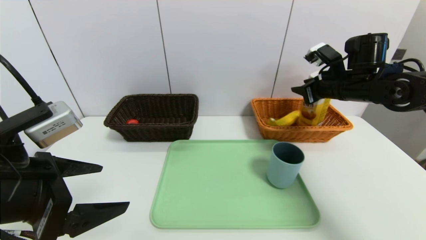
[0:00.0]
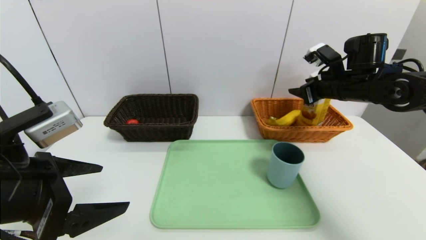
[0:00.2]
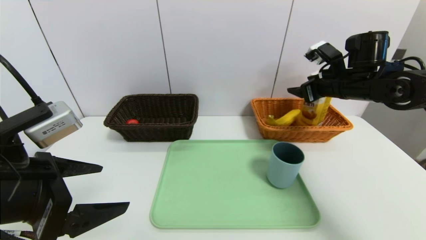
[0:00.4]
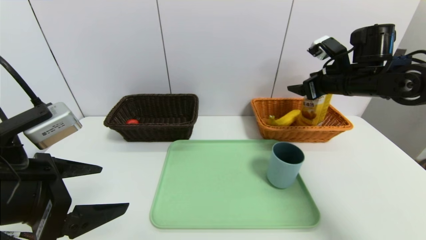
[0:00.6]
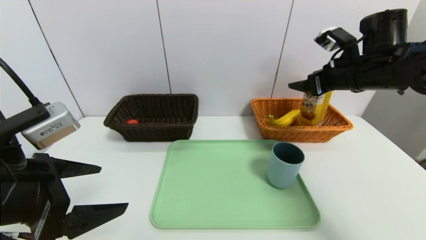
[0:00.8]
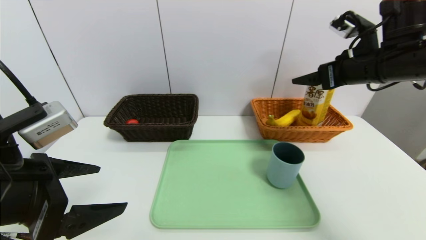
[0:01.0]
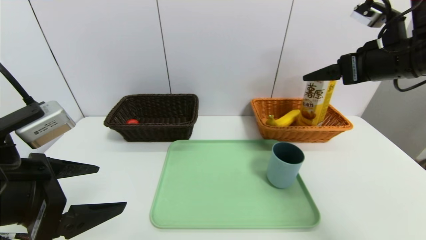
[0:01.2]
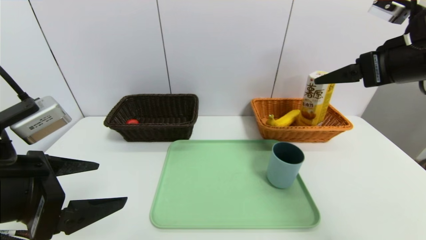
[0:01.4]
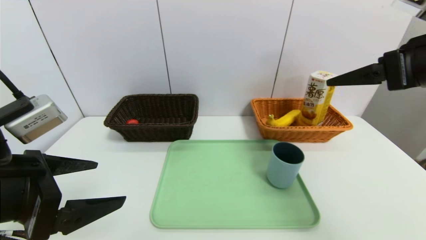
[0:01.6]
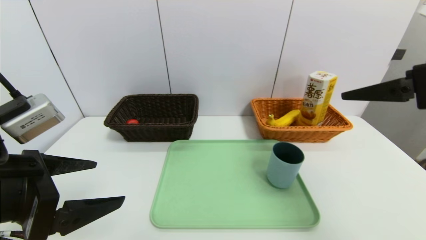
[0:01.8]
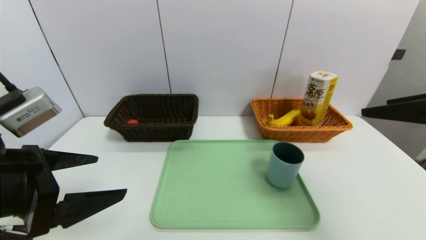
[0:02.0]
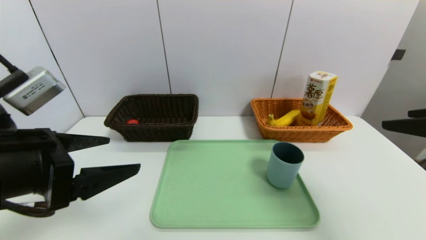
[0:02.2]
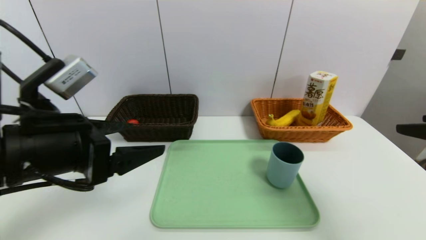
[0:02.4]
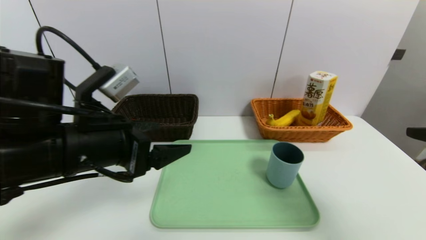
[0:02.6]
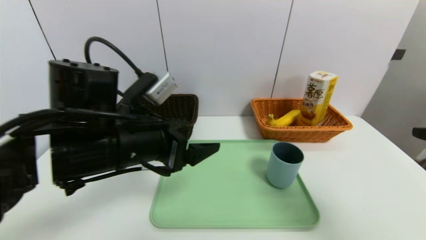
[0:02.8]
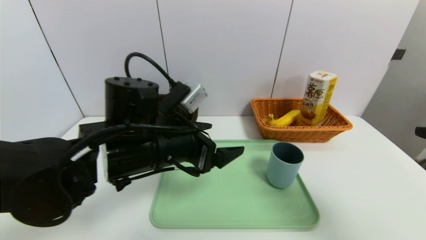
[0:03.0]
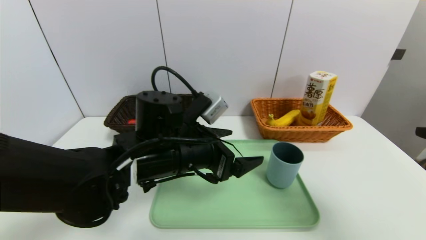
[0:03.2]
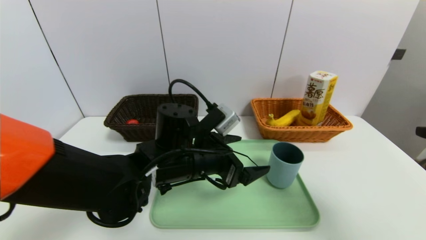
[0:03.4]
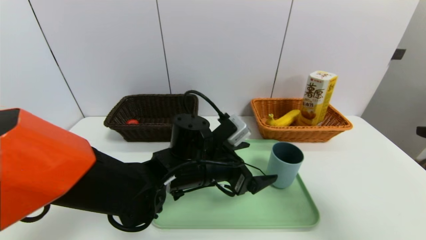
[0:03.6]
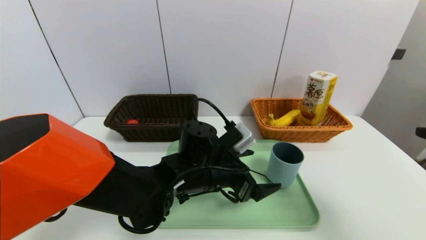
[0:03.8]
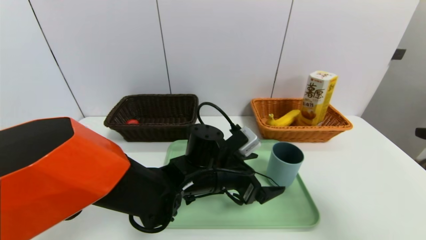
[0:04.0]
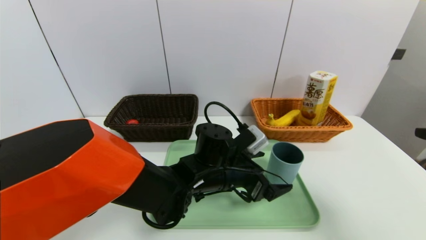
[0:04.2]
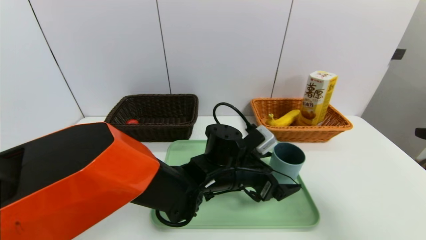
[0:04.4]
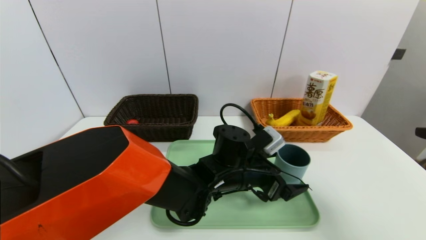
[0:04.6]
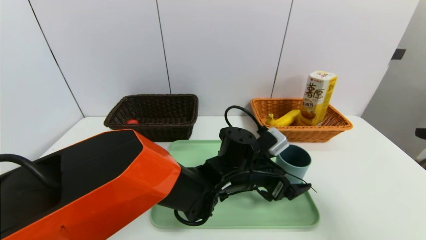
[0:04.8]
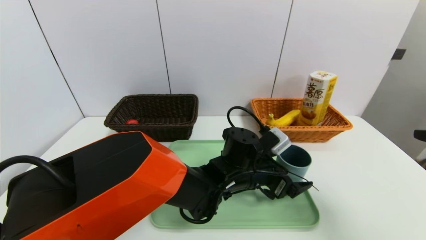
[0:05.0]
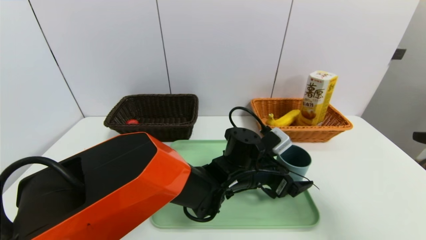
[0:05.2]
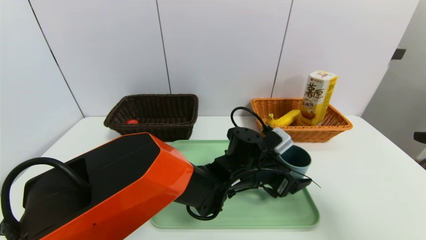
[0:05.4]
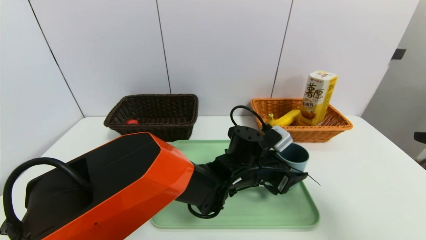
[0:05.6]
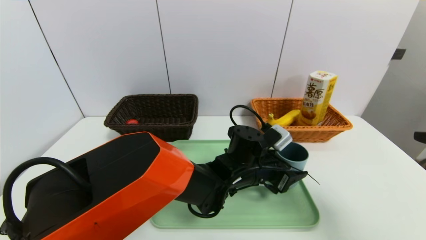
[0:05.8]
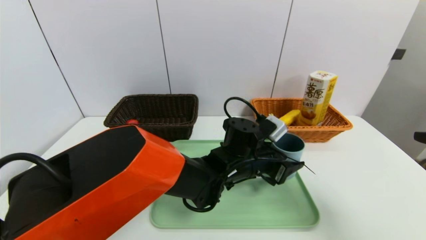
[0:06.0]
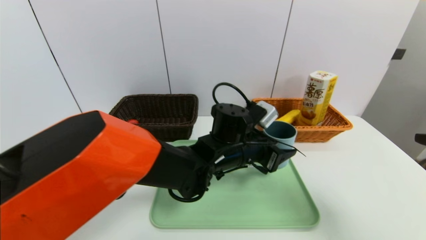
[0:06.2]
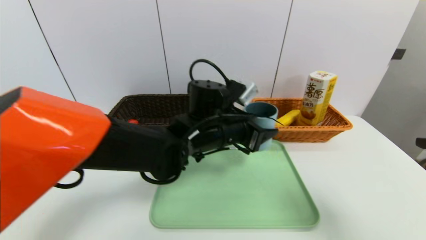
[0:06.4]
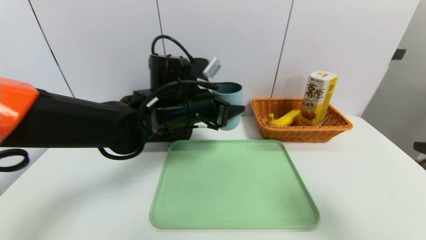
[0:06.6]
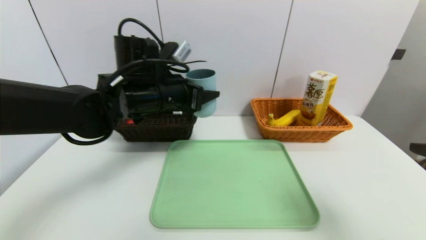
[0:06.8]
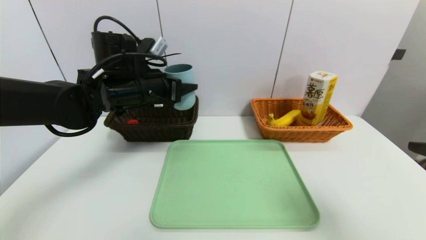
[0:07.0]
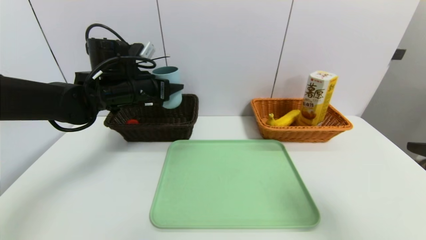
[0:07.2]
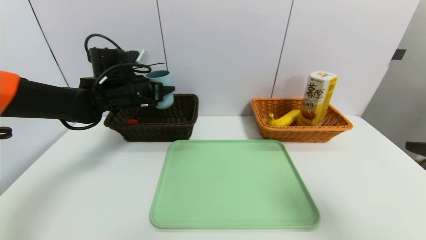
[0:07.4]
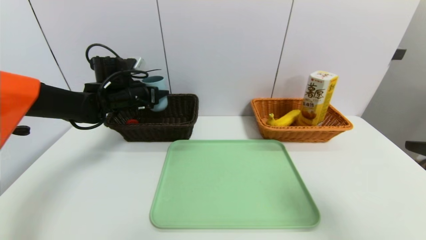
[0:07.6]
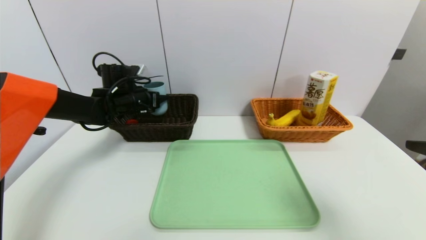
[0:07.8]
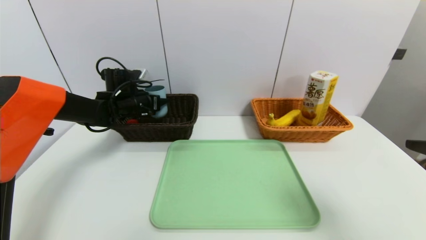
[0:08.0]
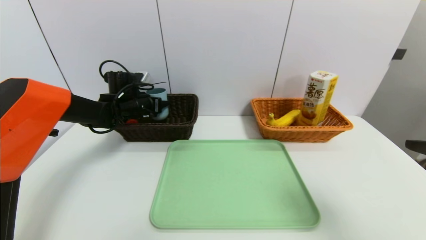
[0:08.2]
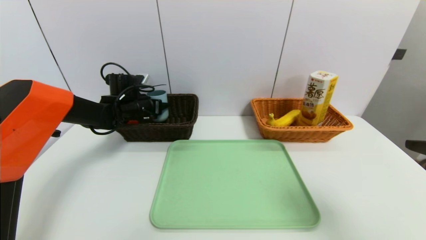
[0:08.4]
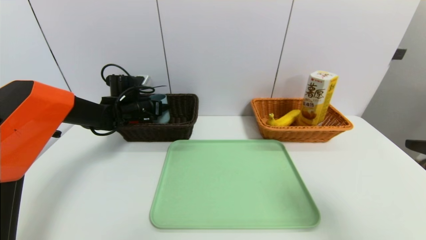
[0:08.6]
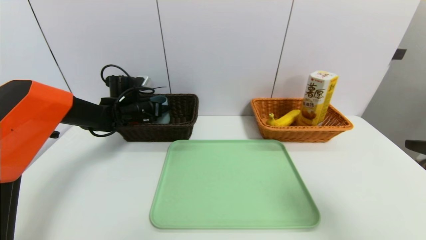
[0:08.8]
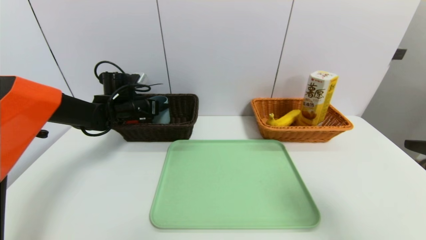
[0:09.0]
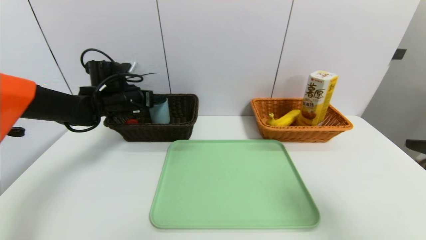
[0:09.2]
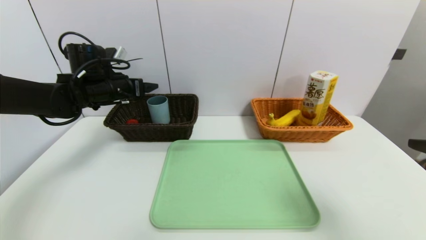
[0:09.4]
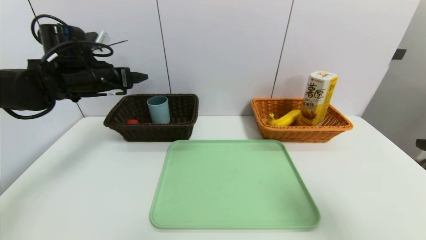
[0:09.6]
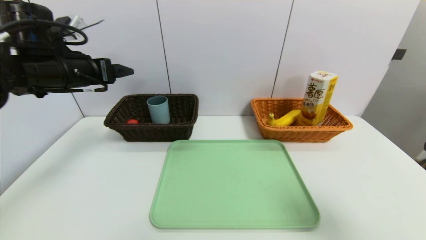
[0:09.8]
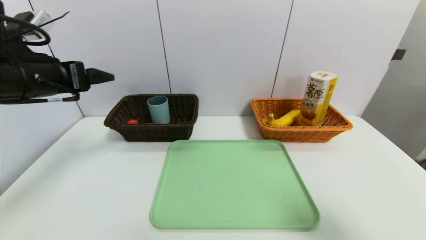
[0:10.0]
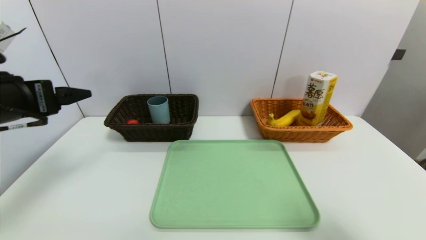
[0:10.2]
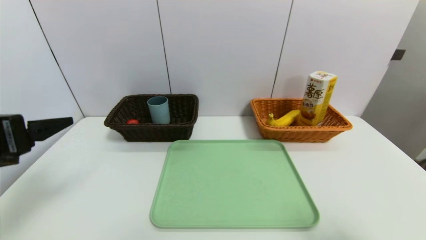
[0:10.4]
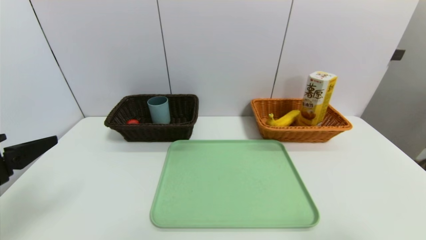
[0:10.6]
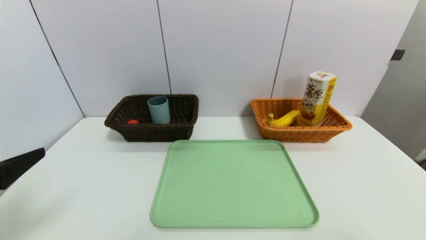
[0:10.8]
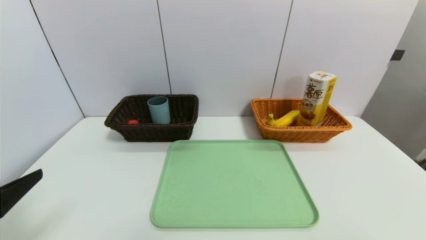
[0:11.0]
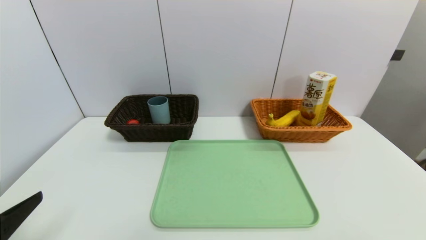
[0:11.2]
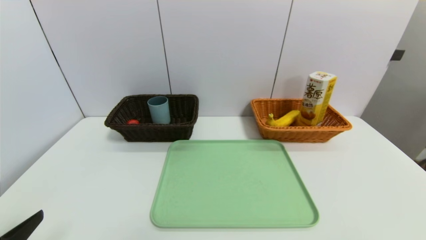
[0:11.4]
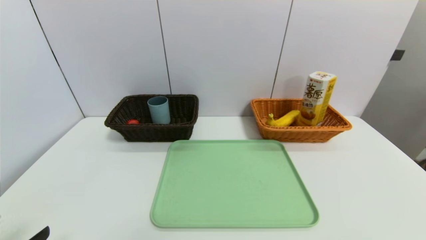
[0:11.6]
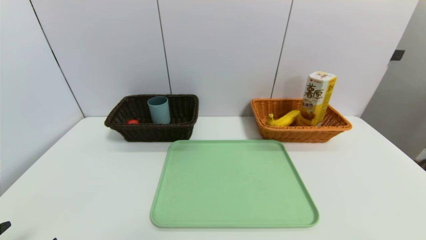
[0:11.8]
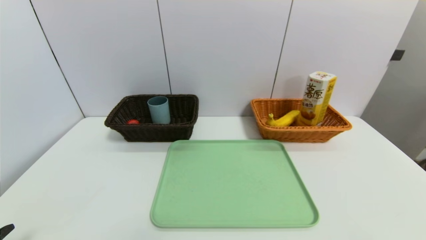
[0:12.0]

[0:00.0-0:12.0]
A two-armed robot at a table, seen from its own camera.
Task of the whole recording: place the food in the right basket with the right gripper, and place the non food items in the left basket with the left gripper.
Step, 0:00.6 to 0:09.2: Grasp the blue cup and put it in the left basket.
0:00.0 to 0:01.6: The right gripper goes roughly 20 cm backward and upward, and opens up.
0:01.6 to 0:03.0: The left gripper is displaced to the right and forward by roughly 20 cm. The right gripper goes approximately 10 cm backward.
0:03.0 to 0:04.4: The left gripper shifts about 15 cm to the right and downward.
0:04.4 to 0:06.0: The left gripper closes up.
0:06.0 to 0:07.6: The left gripper moves to the left and forward, some 30 cm.
0:07.6 to 0:09.0: There are only small adjustments of the grippers.
0:09.0 to 0:10.4: The left gripper travels backward by some 30 cm. Meanwhile the right gripper is displaced backward by roughly 5 cm.
0:10.4 to 0:12.0: The left gripper moves downward and backward, about 20 cm.
